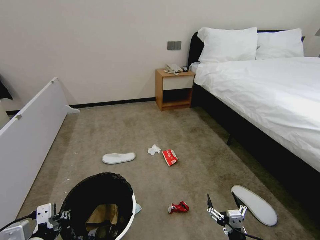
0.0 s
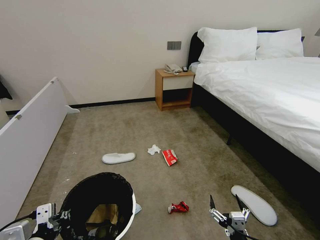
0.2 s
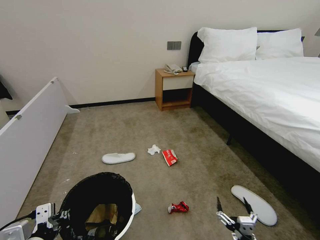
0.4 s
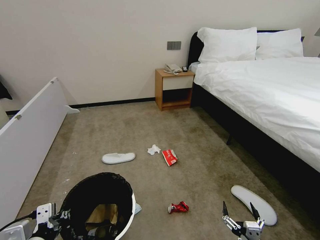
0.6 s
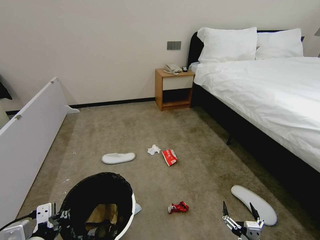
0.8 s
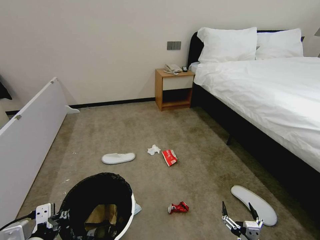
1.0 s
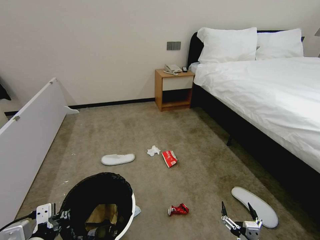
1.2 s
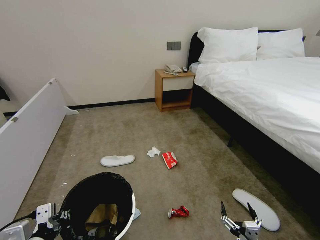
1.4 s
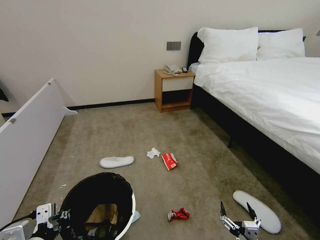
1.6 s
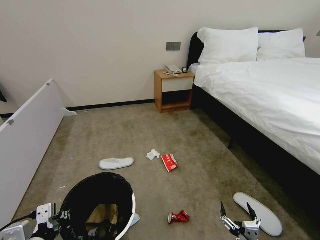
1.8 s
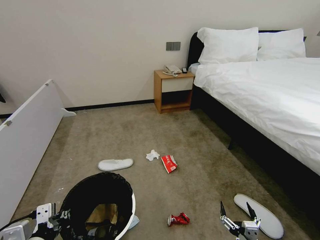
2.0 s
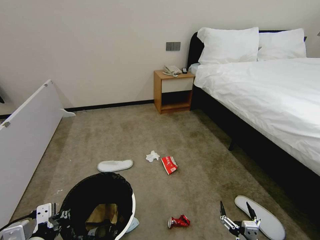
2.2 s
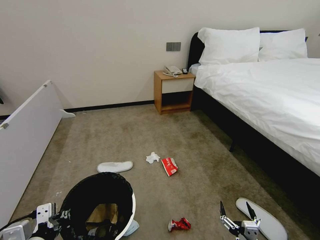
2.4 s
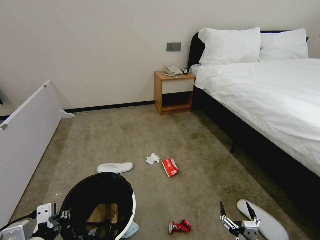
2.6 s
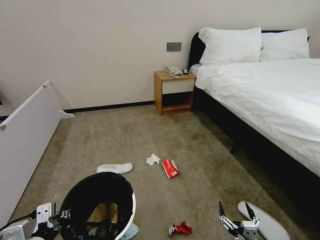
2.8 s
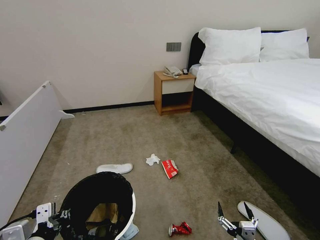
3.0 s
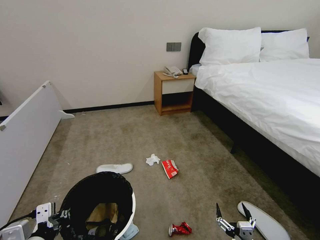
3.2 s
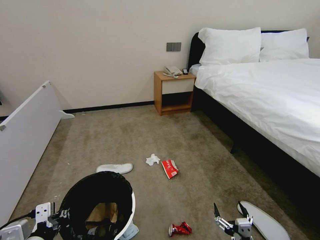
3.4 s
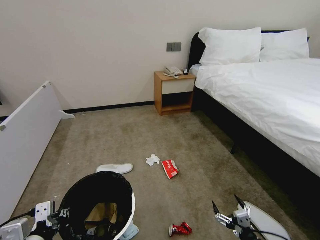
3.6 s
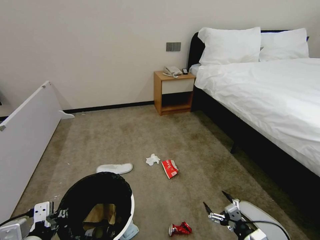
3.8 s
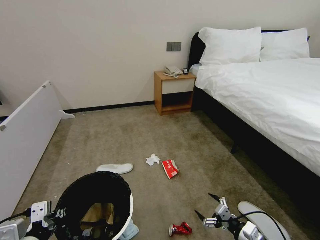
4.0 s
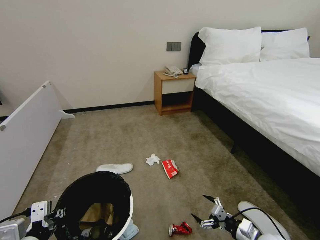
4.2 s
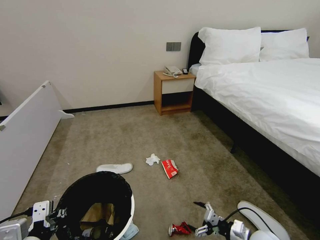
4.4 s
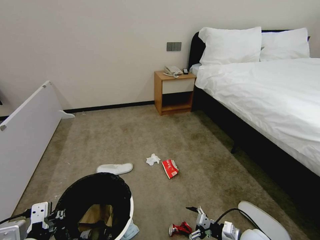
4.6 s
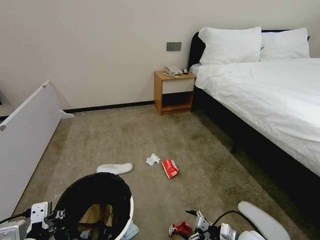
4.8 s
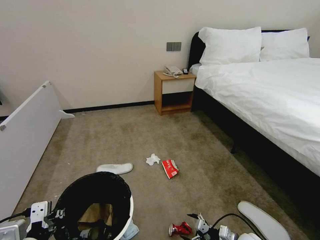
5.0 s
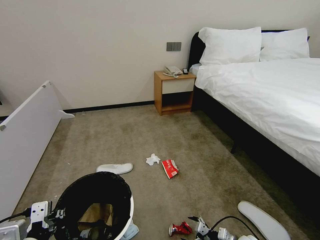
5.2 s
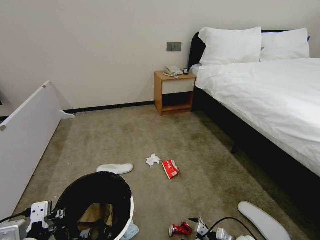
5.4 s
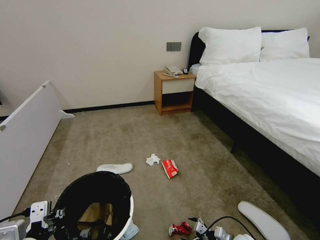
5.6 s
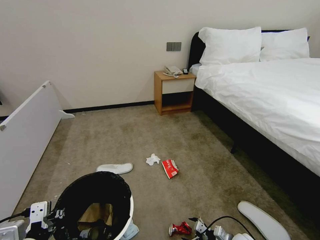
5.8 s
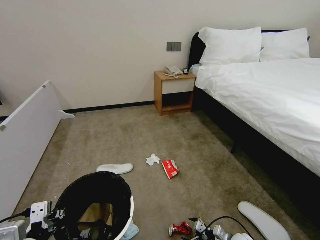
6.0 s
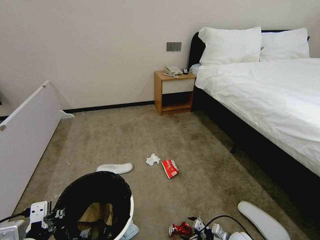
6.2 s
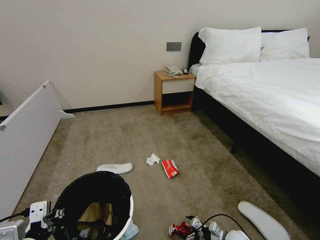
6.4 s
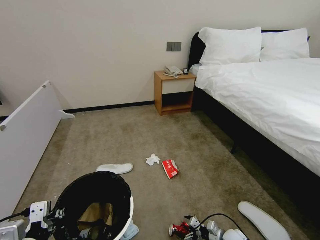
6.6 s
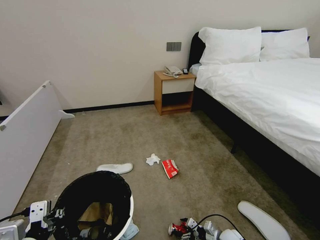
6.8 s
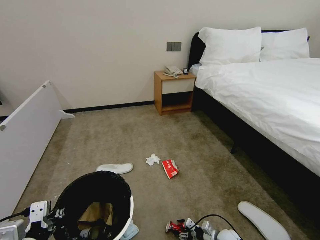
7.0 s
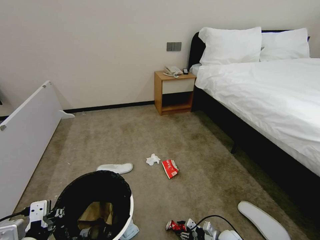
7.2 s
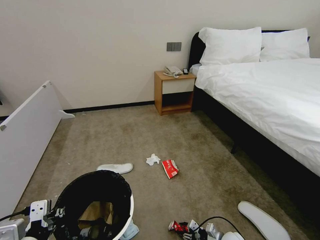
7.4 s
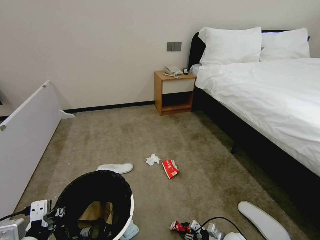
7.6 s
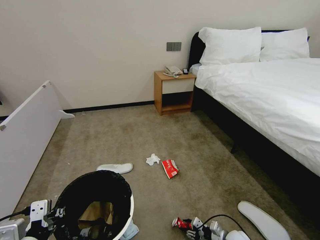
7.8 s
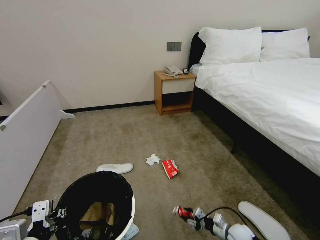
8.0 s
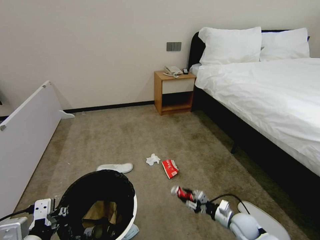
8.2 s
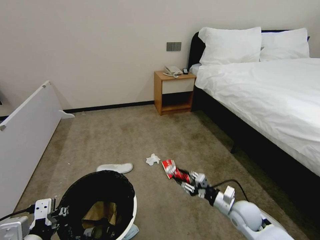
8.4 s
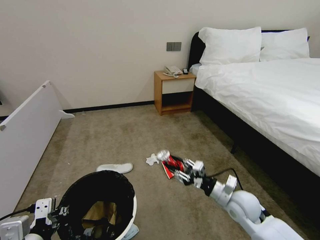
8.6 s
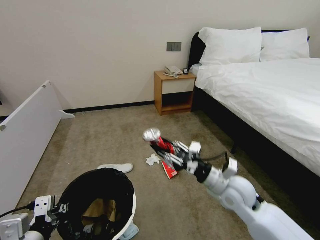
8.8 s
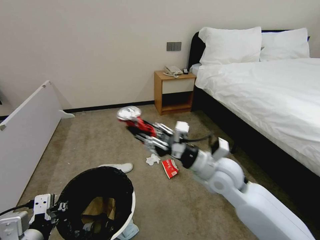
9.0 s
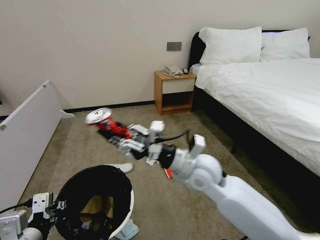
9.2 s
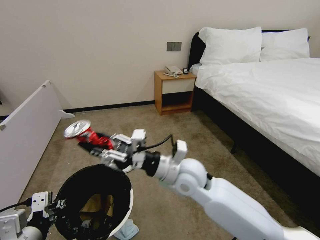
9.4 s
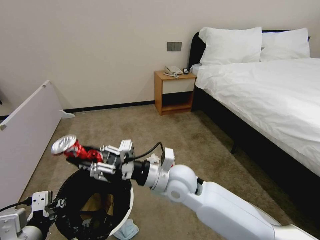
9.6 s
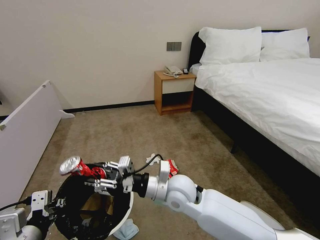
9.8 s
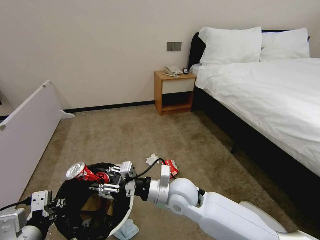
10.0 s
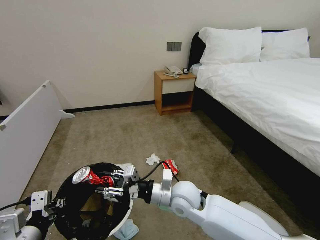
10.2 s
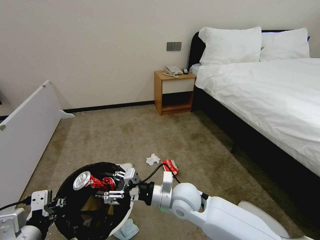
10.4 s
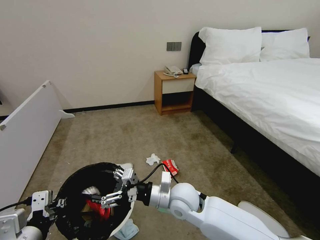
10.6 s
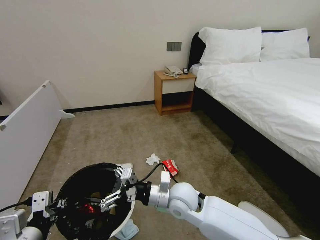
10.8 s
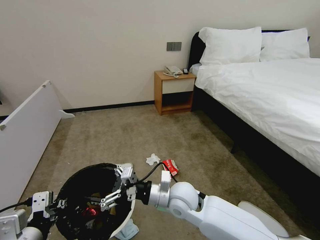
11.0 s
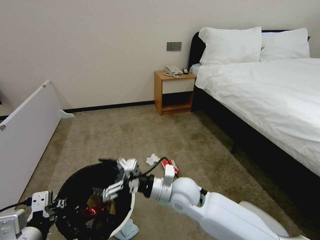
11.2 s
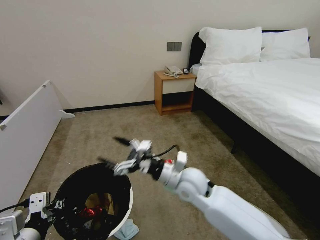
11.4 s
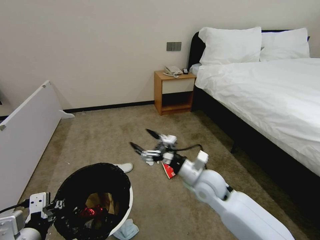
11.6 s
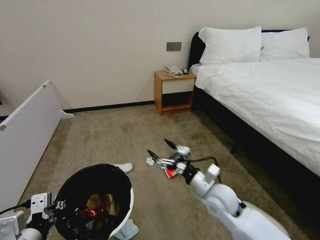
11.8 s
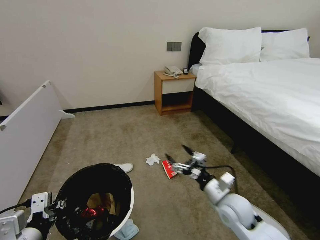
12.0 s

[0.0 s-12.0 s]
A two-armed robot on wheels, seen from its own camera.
Task of the whole recording: Pick up the trash bin, then pick up the garbage from the floor and place it into the trash bin.
0.0 to 1.6 s: There are only small adjustments of the grippers.
1.6 to 3.0 s: Neither gripper changes place.
3.0 to 4.4 s: The right gripper travels forward and to the right by approximately 15 cm.
4.4 to 6.0 s: The right gripper heads downward, covering about 10 cm.
6.0 to 7.6 s: The right gripper closes.
7.6 to 9.0 s: The right gripper is displaced upward by about 40 cm.
9.0 to 10.4 s: The right gripper shifts approximately 15 cm downward and to the left.
10.4 to 12.0 s: The right gripper heads to the right, covering roughly 15 cm, and opens.

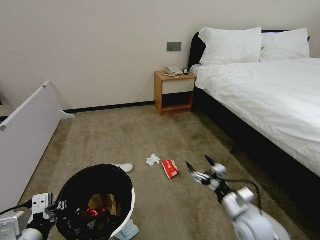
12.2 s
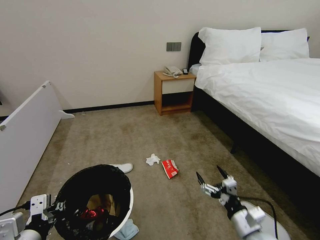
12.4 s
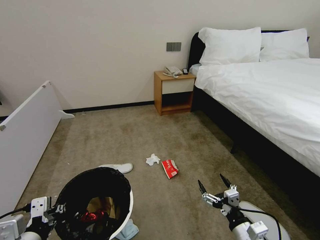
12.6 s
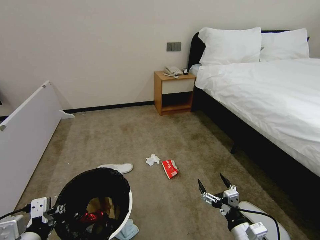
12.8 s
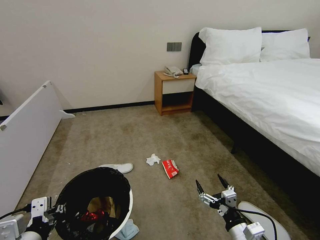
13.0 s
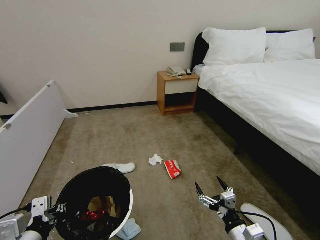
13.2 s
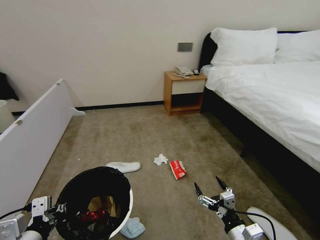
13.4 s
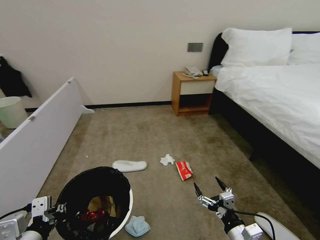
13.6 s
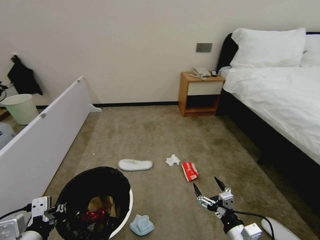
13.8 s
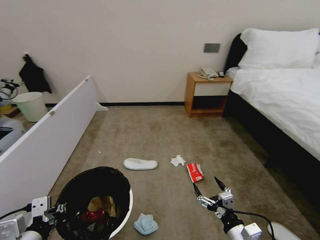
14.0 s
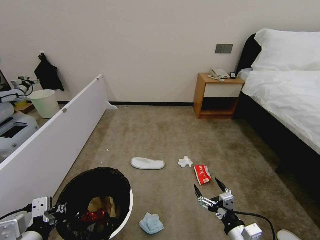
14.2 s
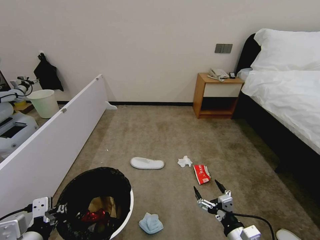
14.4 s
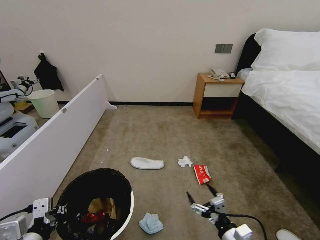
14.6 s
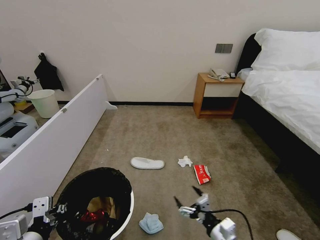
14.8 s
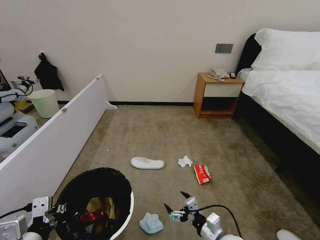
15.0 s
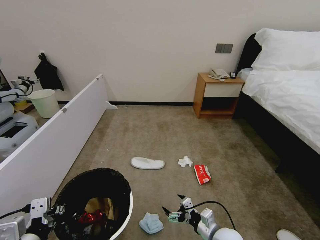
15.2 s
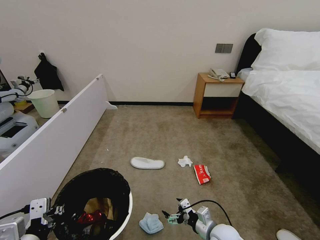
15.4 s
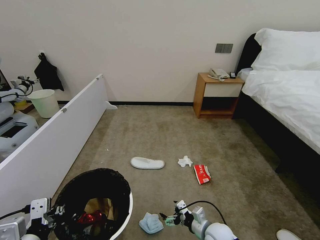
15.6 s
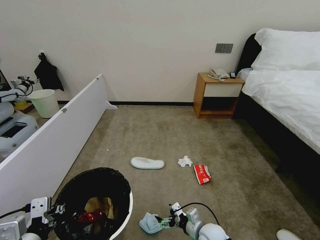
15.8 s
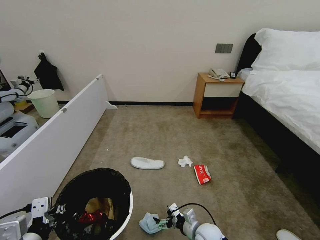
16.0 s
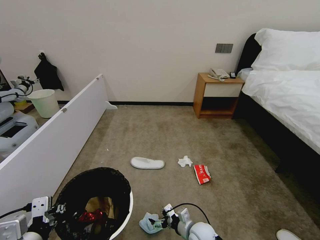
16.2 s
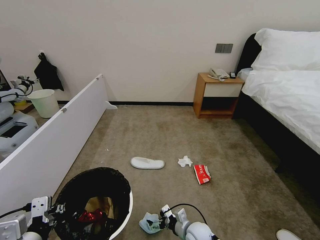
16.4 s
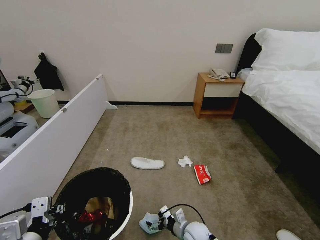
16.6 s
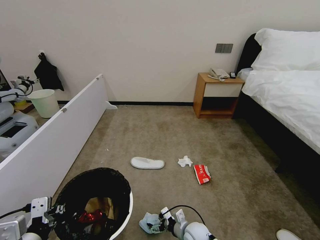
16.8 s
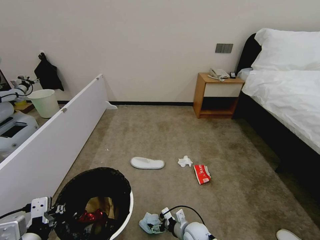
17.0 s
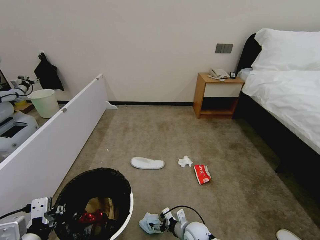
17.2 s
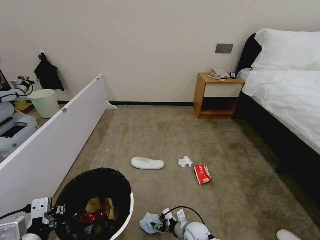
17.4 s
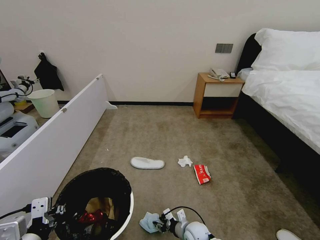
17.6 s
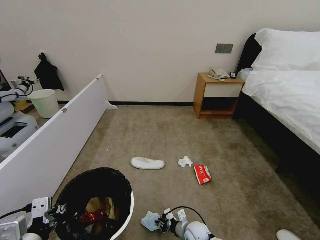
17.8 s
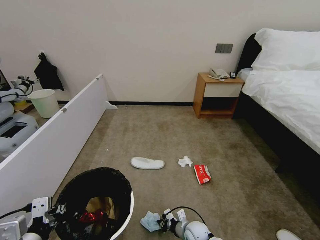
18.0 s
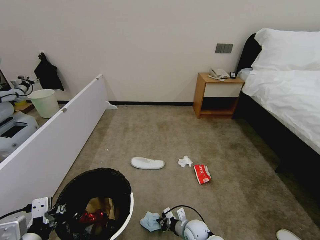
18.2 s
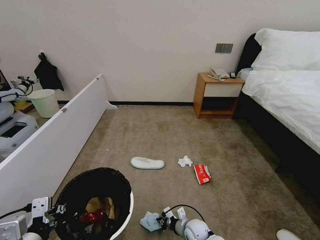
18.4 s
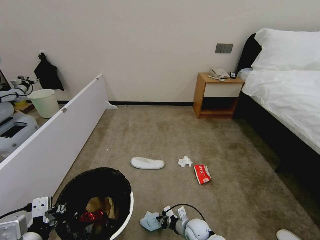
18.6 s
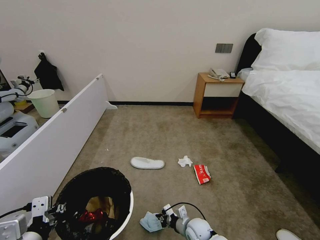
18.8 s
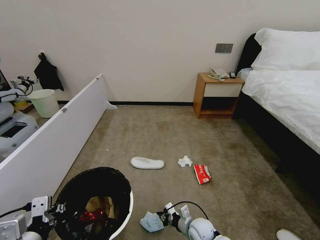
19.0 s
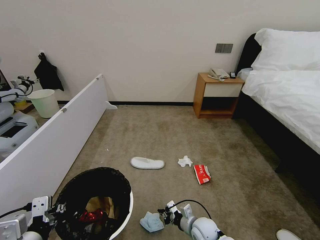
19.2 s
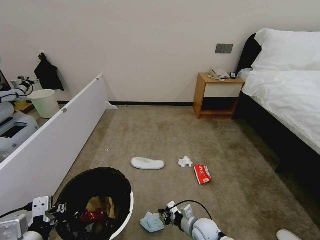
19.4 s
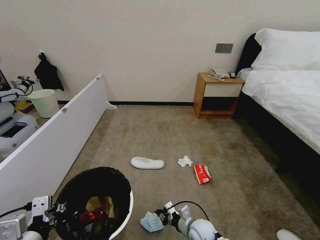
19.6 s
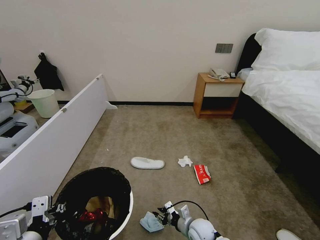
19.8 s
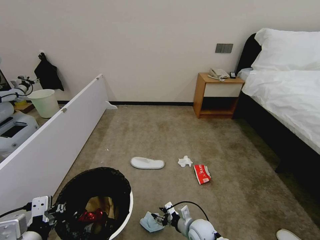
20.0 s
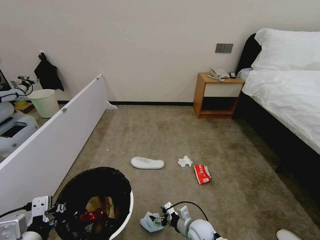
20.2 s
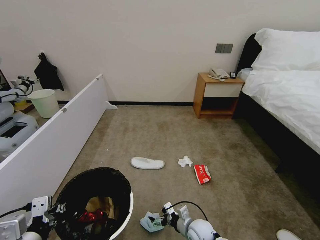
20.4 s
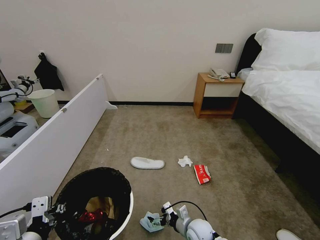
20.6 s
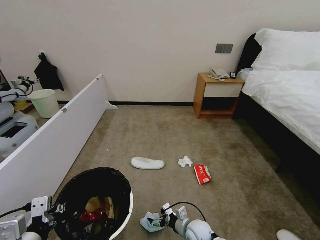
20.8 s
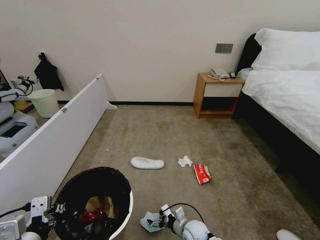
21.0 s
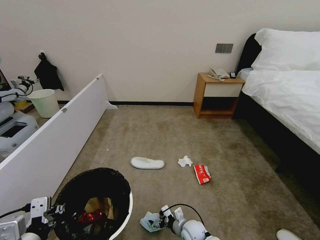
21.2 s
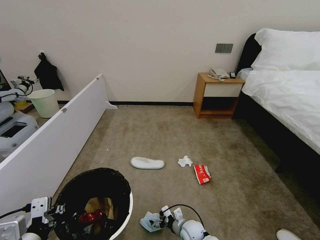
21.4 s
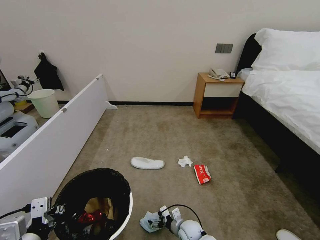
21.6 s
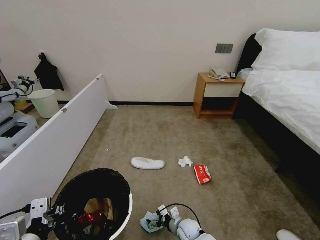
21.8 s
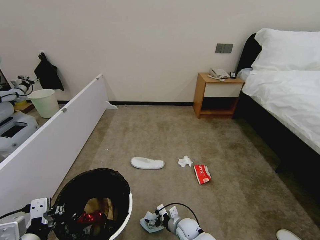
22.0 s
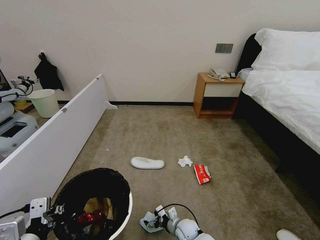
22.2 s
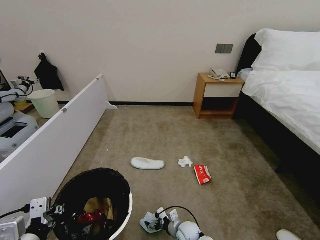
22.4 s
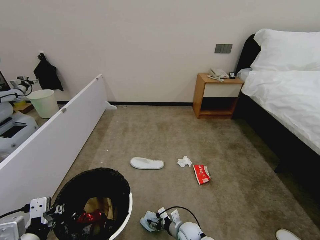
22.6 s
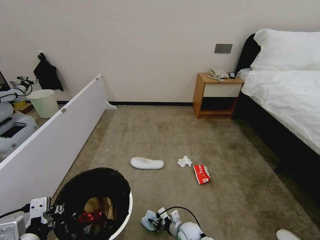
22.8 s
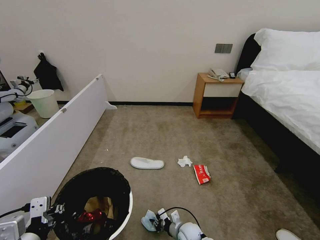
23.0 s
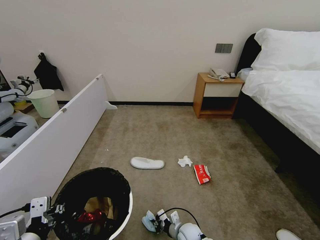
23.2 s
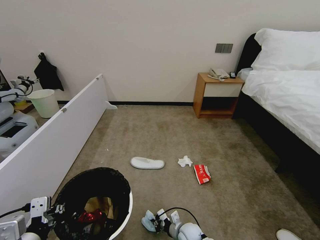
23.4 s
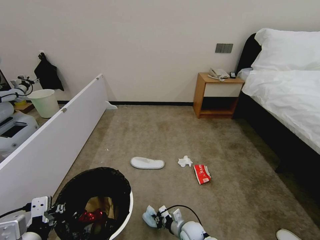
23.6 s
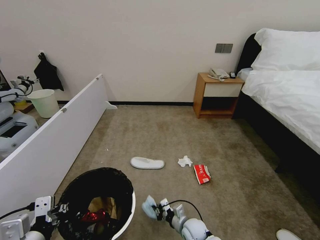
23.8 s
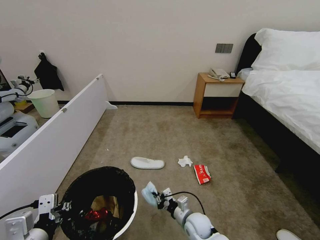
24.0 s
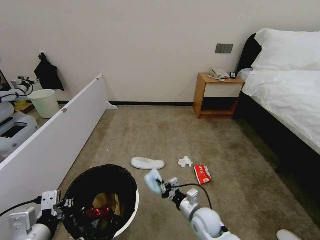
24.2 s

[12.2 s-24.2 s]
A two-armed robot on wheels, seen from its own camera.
Task of the whole recording: Pick up the trash bin, then pick up the garbage from the floor and place it into the trash bin.
12.2 to 13.8 s: The right gripper moves backward, approximately 10 cm.
13.8 to 15.2 s: The right gripper goes roughly 10 cm forward and downward.
15.2 to 16.6 s: The right gripper shifts about 15 cm downward, to the left and forward.
16.6 to 18.2 s: The right gripper closes.
18.2 to 19.8 s: The right gripper opens its fingers.
19.8 to 21.2 s: The right gripper opens up.
21.2 to 22.6 s: There are only small adjustments of the grippers.
22.6 to 24.2 s: The right gripper travels upward by some 15 cm, and closes up.
